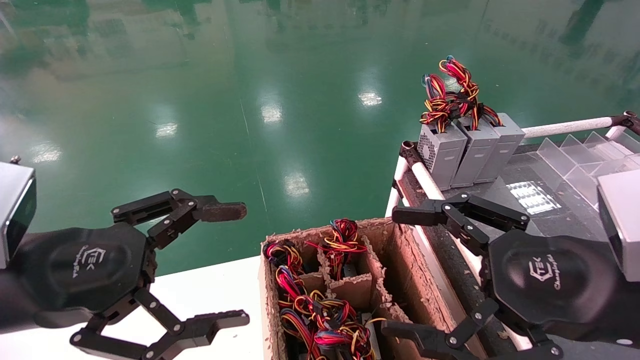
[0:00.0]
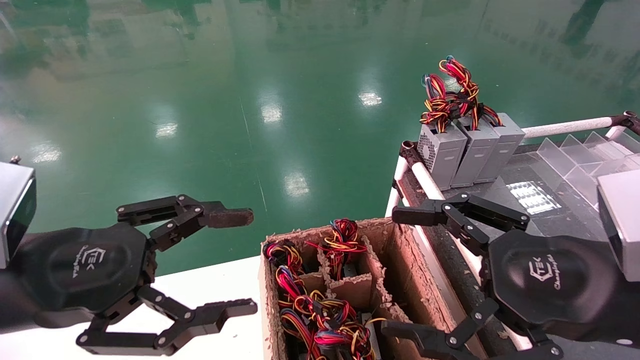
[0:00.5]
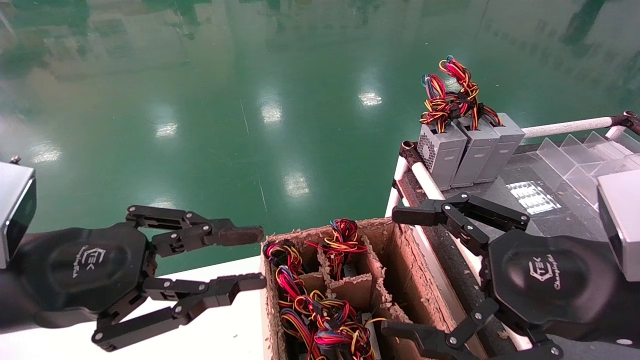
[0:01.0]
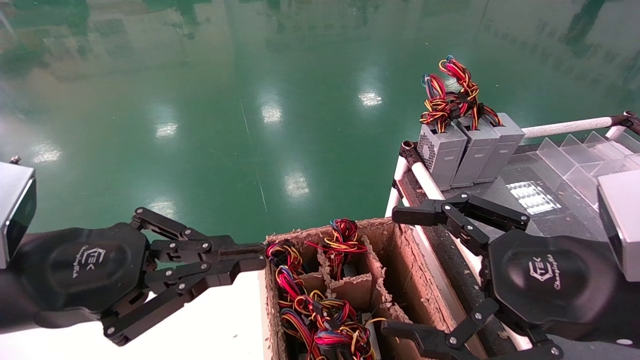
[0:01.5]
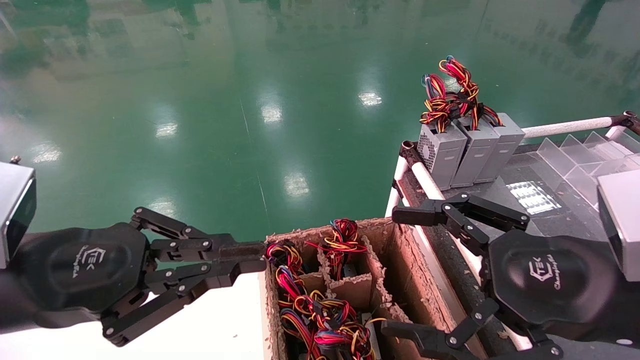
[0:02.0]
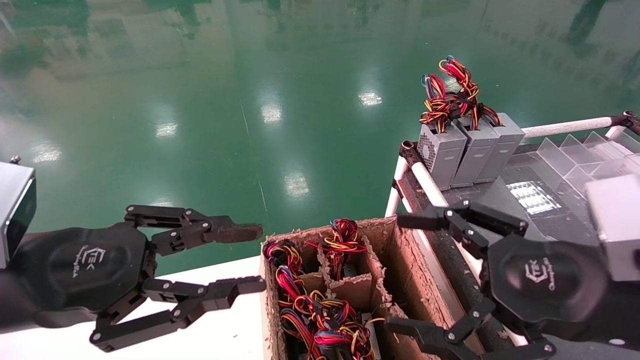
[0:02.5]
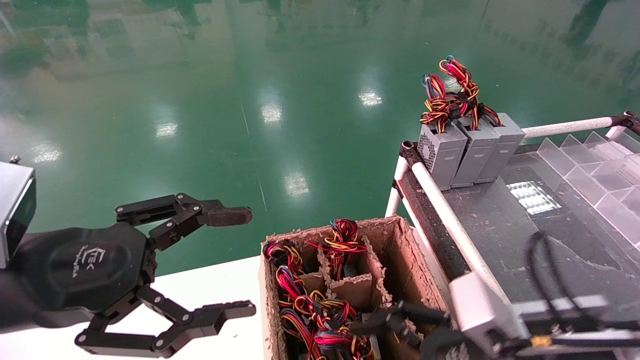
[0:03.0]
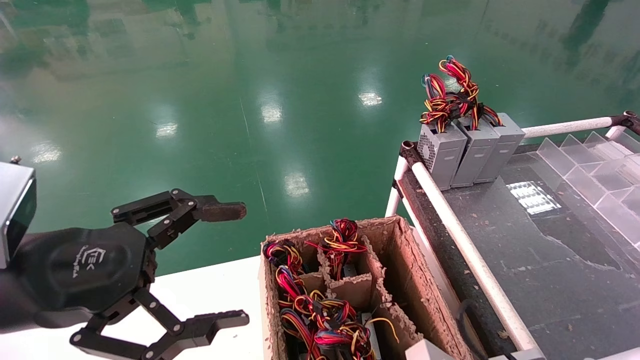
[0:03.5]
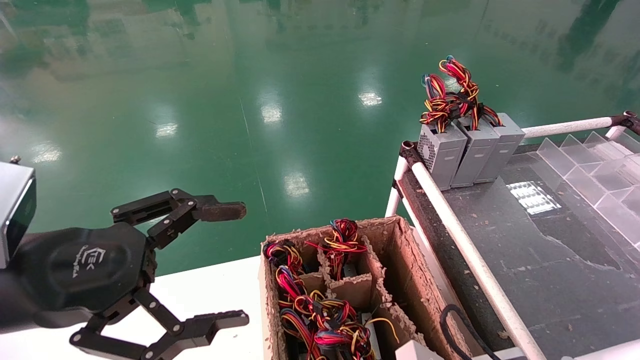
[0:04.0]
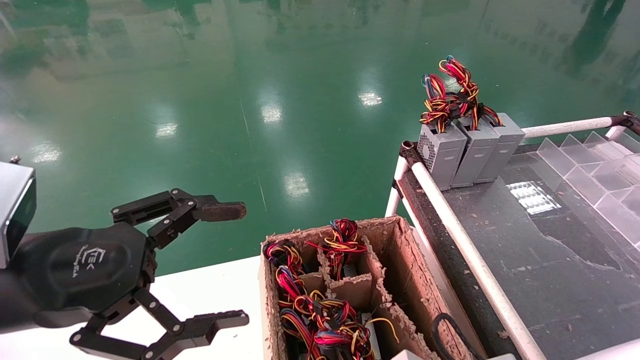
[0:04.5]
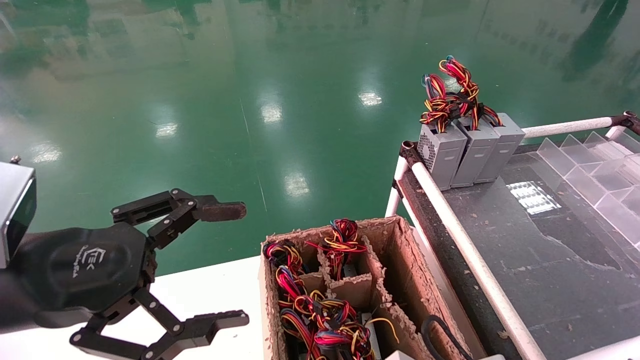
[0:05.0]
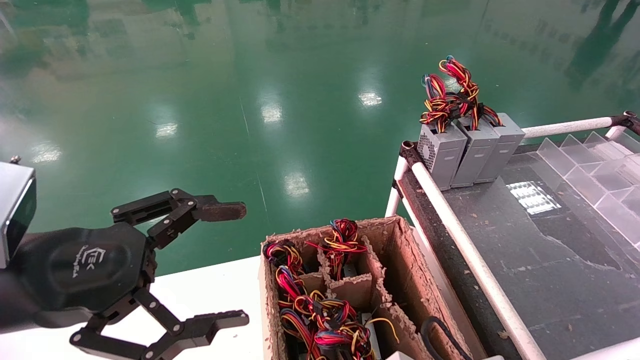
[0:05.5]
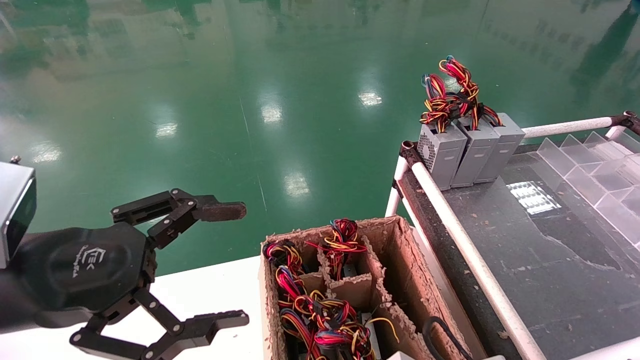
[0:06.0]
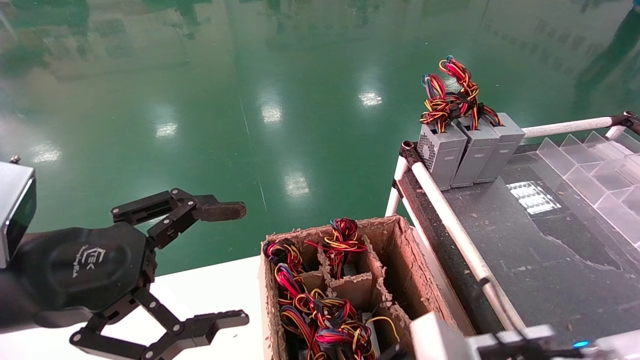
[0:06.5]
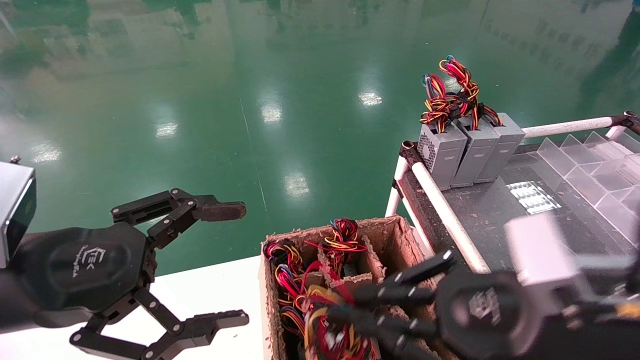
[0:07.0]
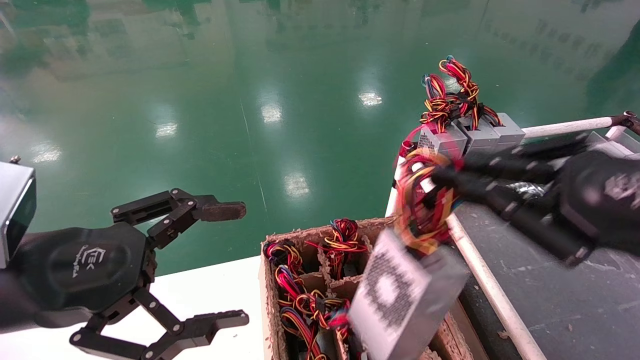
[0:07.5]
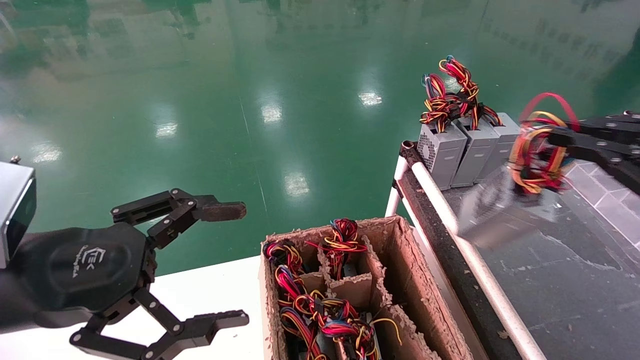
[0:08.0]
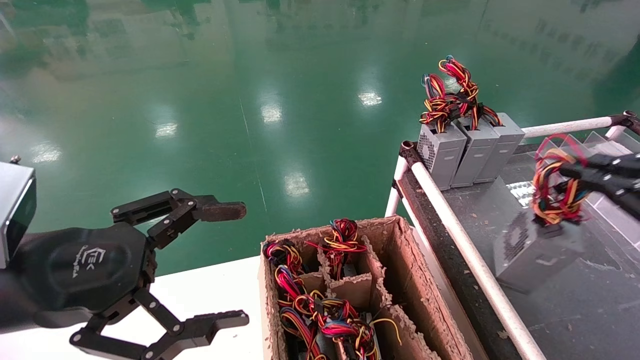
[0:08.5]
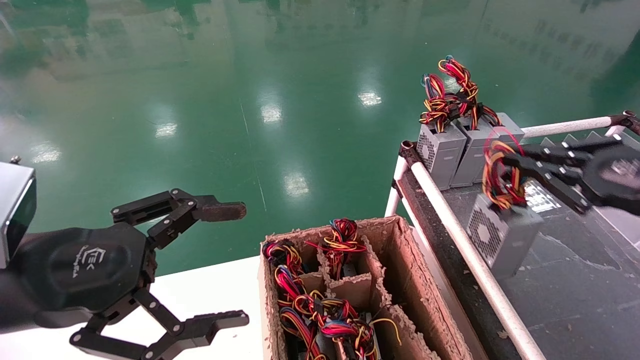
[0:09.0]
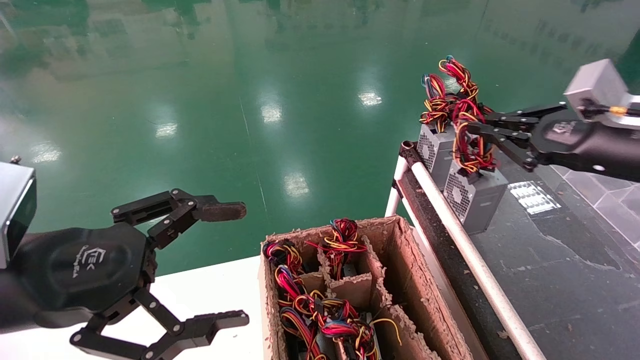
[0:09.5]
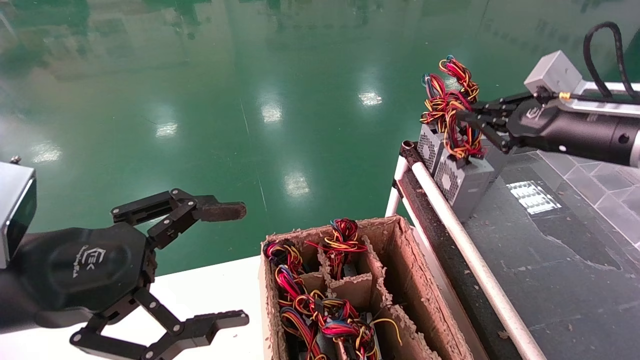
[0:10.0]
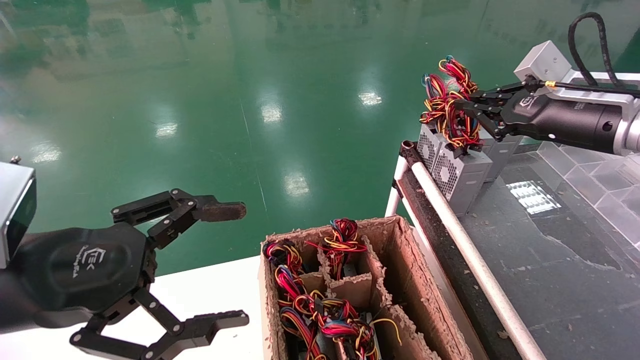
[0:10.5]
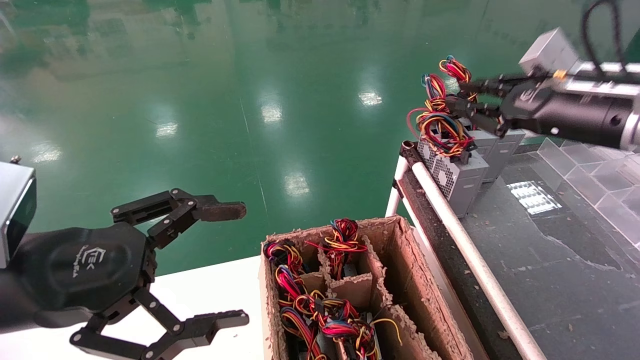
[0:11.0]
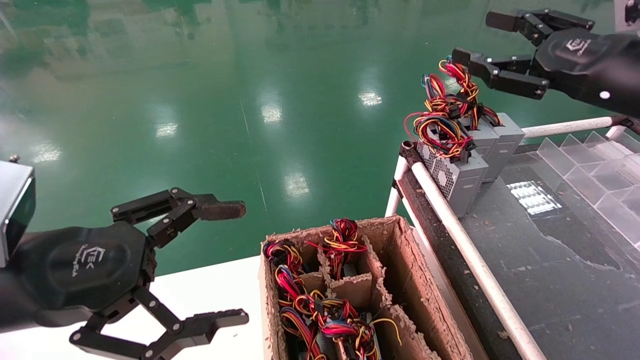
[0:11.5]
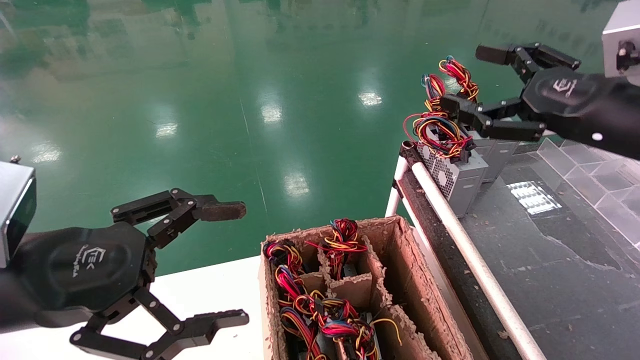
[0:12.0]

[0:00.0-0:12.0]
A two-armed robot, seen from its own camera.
Step, 0:01.5 to 0:05.5: Grab and lift the power supply from the large box.
Step, 0:06.0 to 0:10.5: Place the power supply on the operating table.
0:00.0 to 0:02.0: The left gripper closes up.
0:02.0 to 0:04.0: The left gripper opens. The right gripper shifts approximately 15 cm downward and to the left.
0:04.0 to 0:06.0: The right gripper closes its fingers.
0:06.0 to 0:08.0: The right gripper goes about 30 cm upward and to the right.
0:08.0 to 0:10.0: The right gripper moves forward, some 20 cm.
0:10.0 to 0:12.0: The right gripper goes roughly 5 cm backward, and opens its fingers.

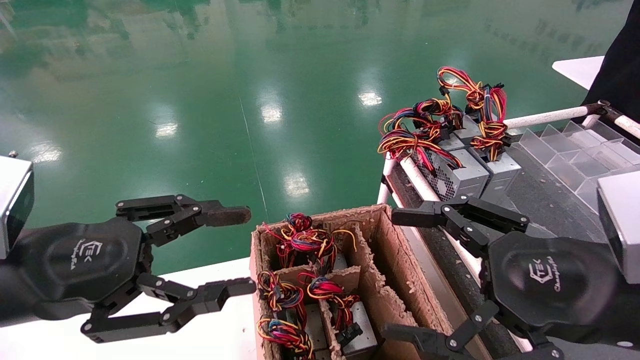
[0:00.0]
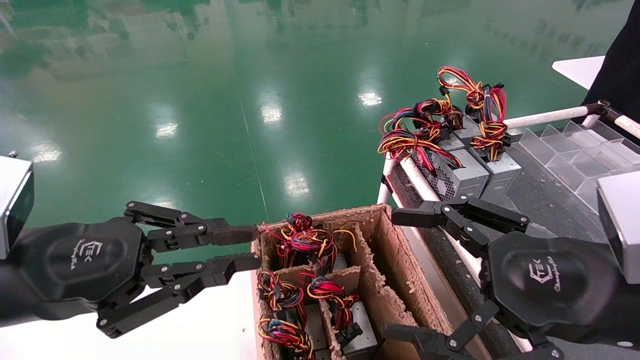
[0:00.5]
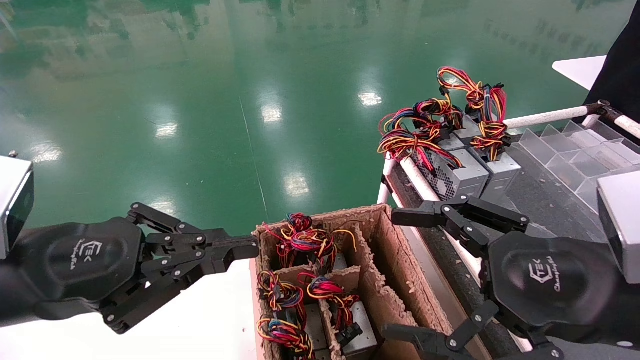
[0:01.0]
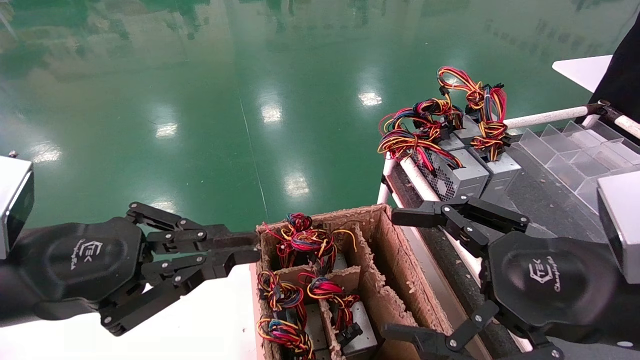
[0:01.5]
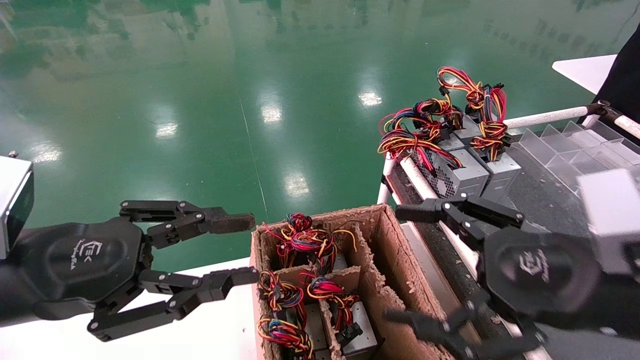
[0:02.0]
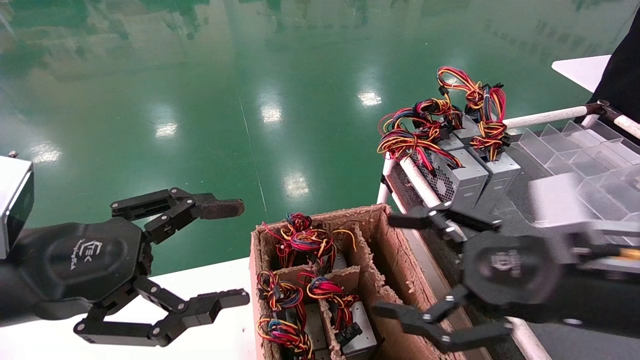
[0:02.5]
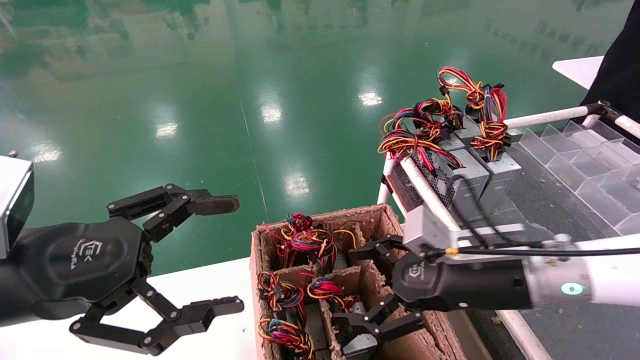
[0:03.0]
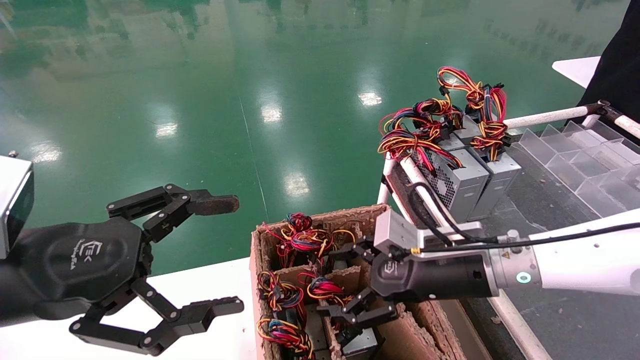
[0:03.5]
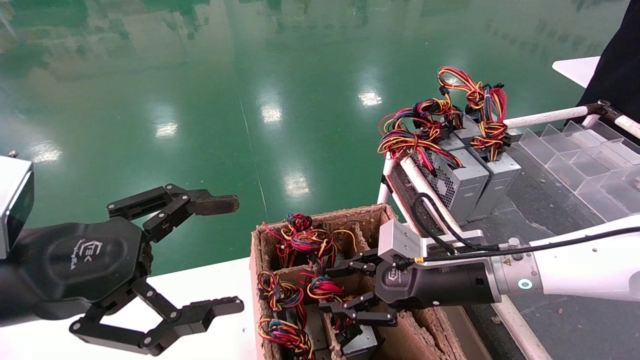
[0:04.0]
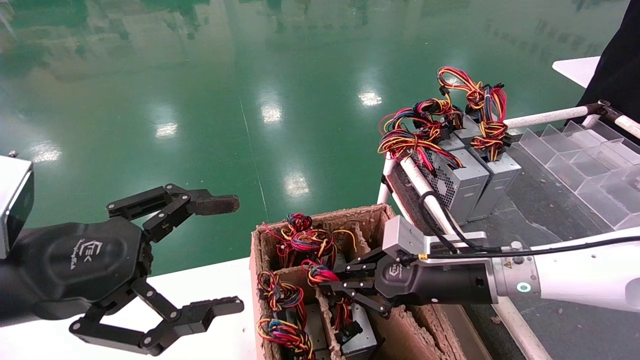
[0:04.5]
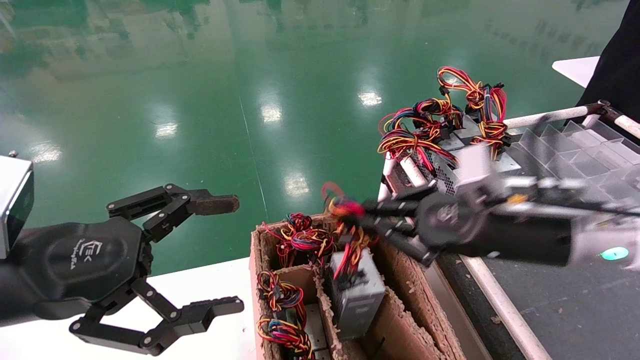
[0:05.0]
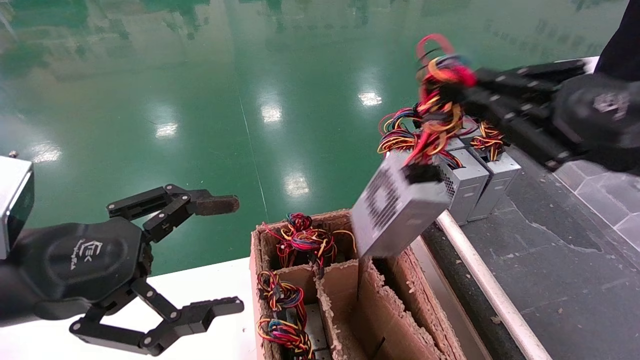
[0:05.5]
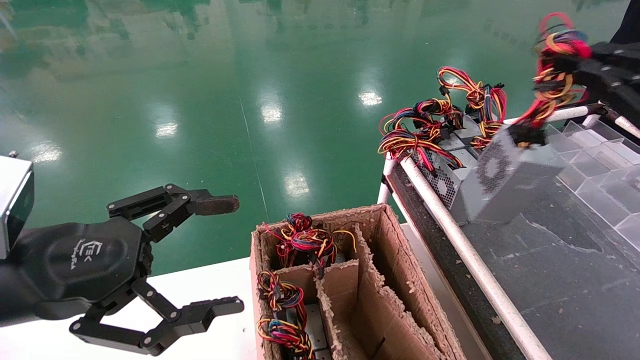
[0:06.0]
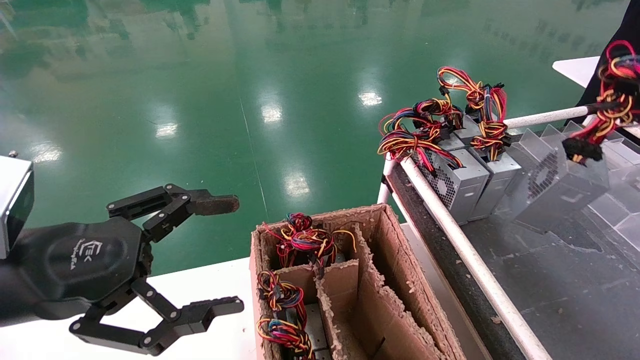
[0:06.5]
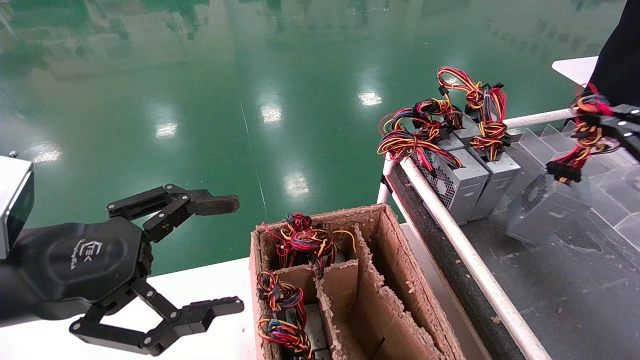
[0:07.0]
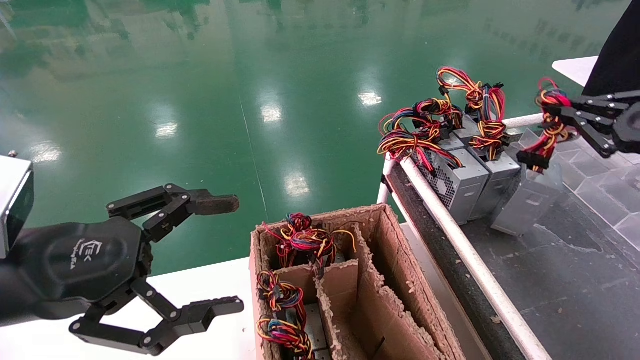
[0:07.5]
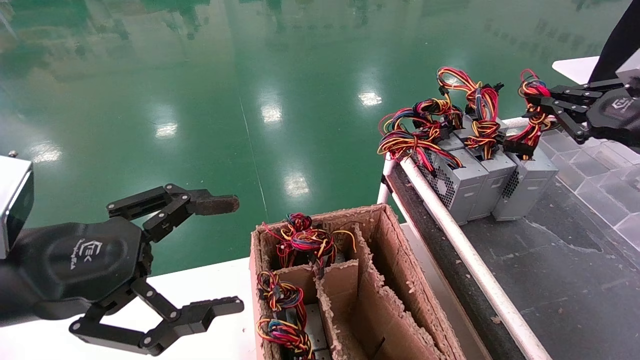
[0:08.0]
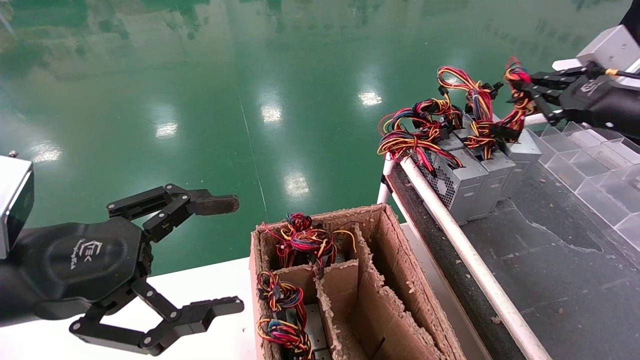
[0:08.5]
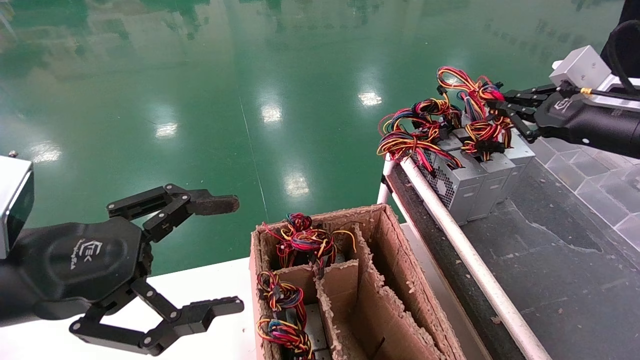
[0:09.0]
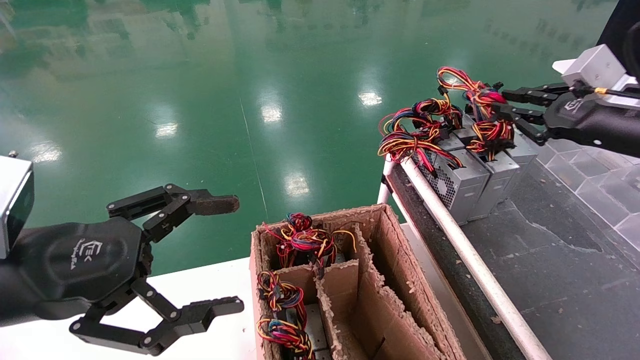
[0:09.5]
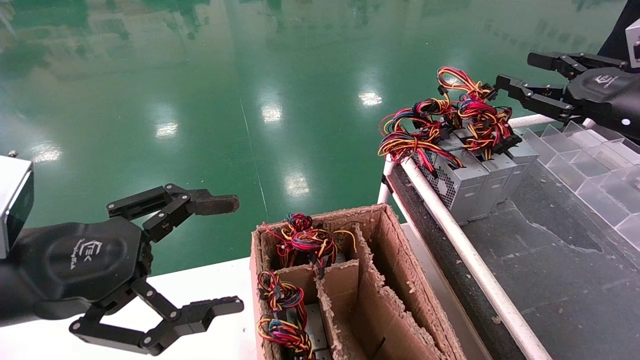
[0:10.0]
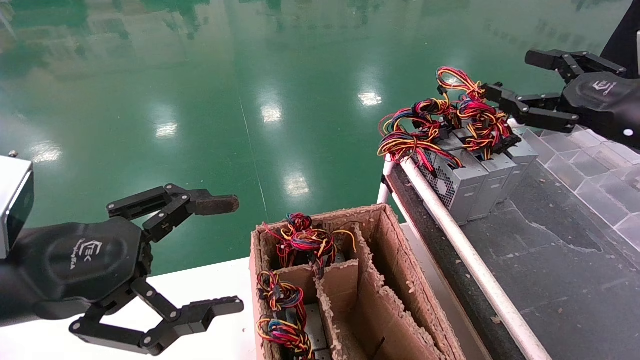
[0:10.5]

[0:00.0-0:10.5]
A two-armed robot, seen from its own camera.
Step, 0:01.0 to 0:04.5: Grab and lift the power supply from the large box.
Step, 0:05.0 to 0:09.5: Place the power supply on the operating table.
0:00.0 to 0:02.0: The two grippers keep their place.
0:02.0 to 0:04.0: The left gripper opens. The right gripper is displaced forward, downward and to the left by about 20 cm, and closes up.
0:04.0 to 0:06.5: The right gripper travels to the right and upward by some 35 cm, and closes up.
0:06.5 to 0:08.5: The right gripper moves forward and to the left, some 15 cm.
0:08.5 to 0:10.5: The right gripper is displaced backward by about 5 cm, and opens its fingers.
